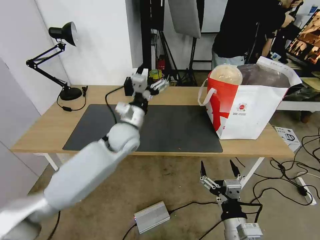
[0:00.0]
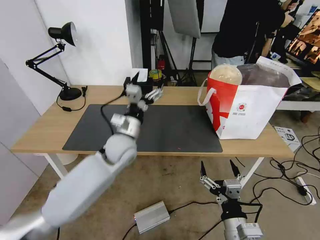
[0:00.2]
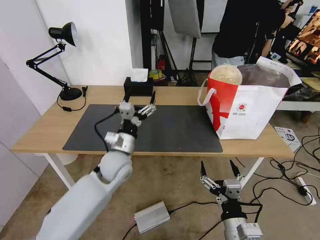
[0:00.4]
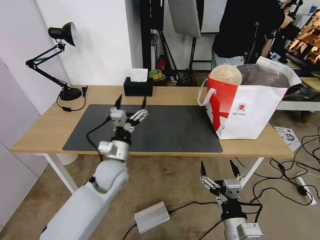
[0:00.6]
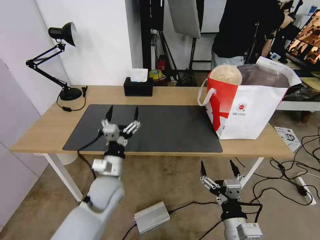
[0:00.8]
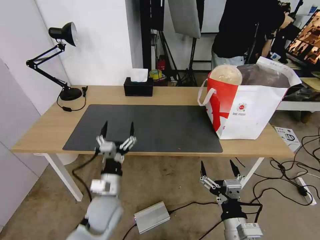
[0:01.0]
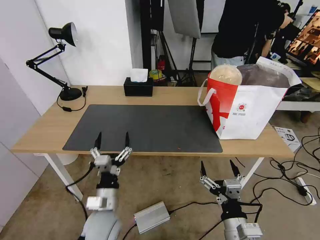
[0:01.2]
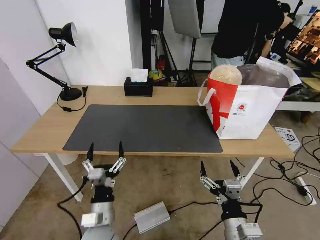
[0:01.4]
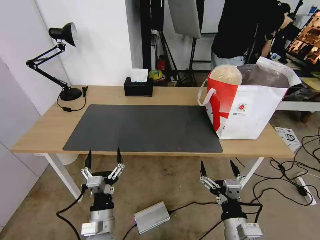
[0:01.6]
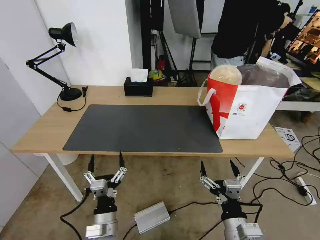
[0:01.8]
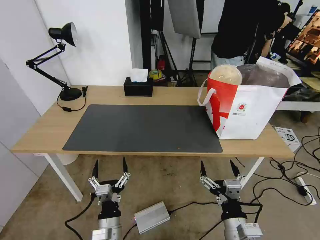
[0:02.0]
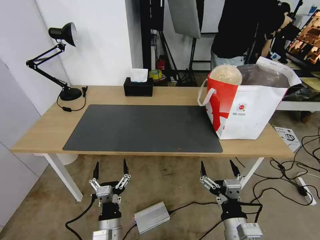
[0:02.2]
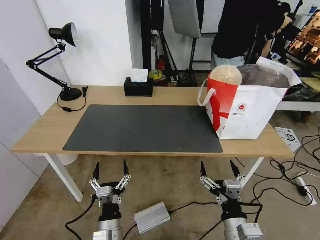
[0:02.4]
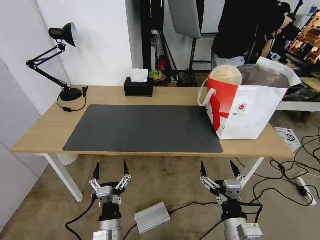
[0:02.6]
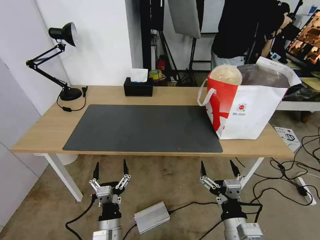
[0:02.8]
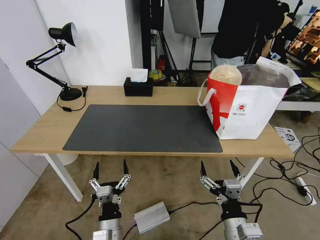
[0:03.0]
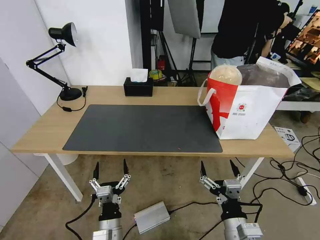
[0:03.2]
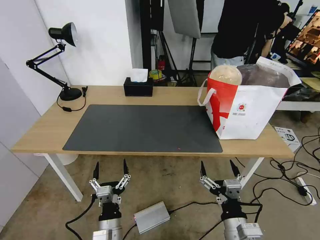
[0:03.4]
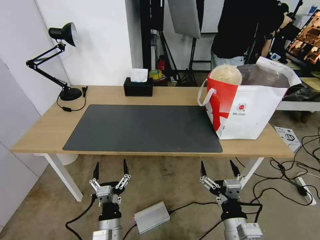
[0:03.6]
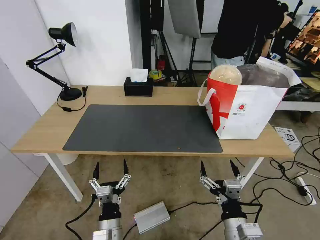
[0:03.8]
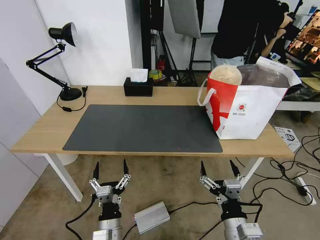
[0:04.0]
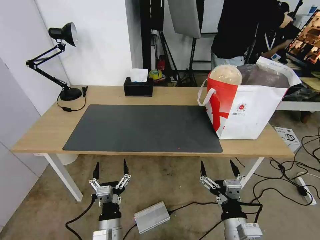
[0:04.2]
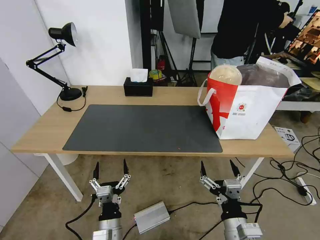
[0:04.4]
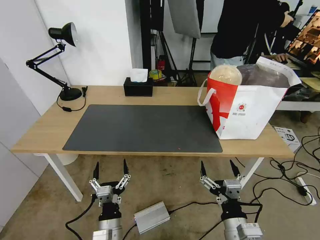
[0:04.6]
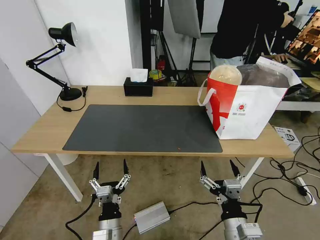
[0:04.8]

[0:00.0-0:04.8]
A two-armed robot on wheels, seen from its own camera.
Task of the whole recording: Pick up the trash from the table and place it into the takeout bag.
0:00.0 to 0:01.6: The left gripper is displaced backward and downward by about 35 cm.
0:01.6 to 0:03.2: The grippers stay close to where they were, moving slightly.
0:03.2 to 0:04.8: Neither gripper changes place.
